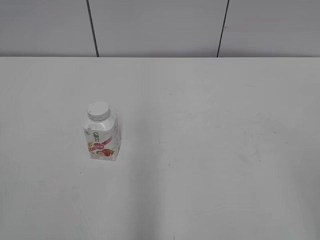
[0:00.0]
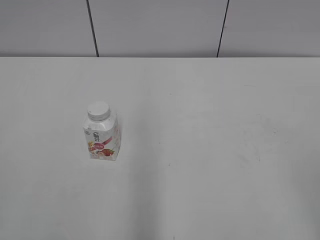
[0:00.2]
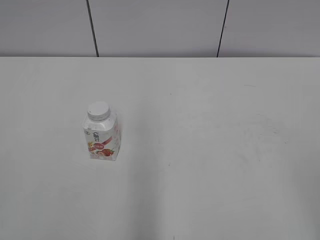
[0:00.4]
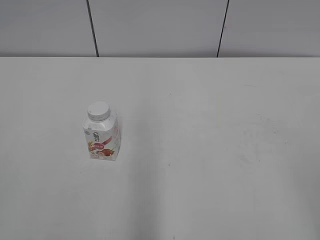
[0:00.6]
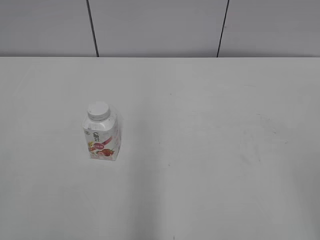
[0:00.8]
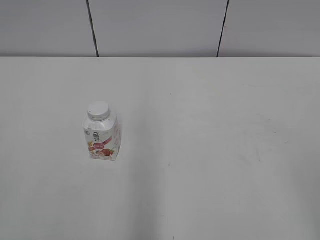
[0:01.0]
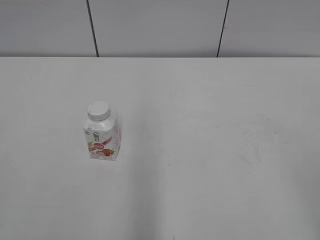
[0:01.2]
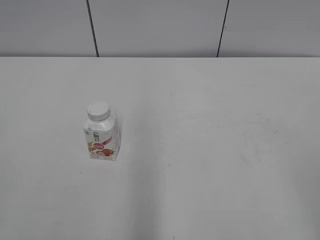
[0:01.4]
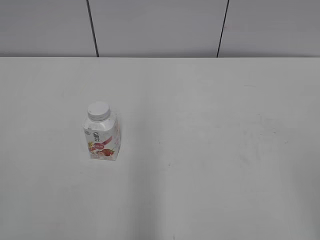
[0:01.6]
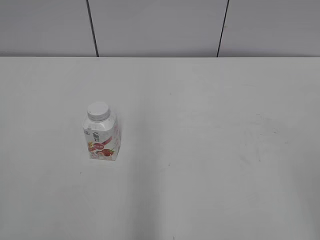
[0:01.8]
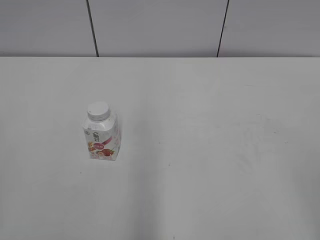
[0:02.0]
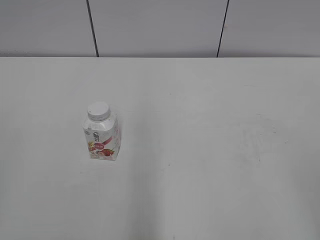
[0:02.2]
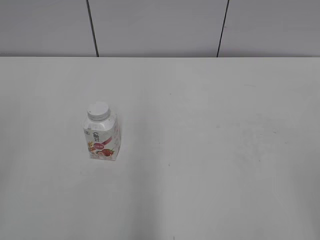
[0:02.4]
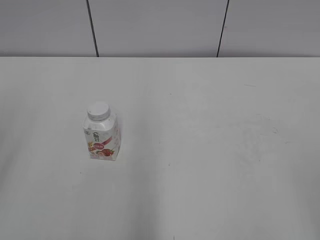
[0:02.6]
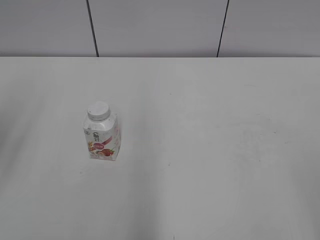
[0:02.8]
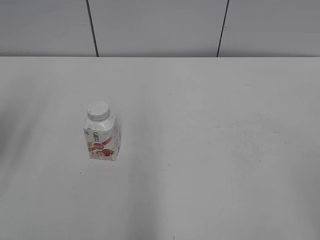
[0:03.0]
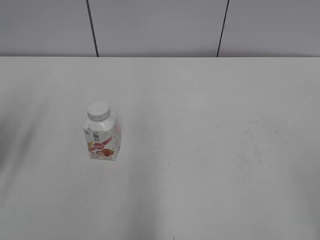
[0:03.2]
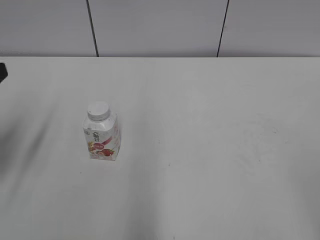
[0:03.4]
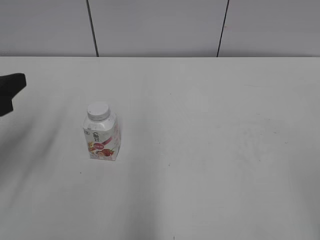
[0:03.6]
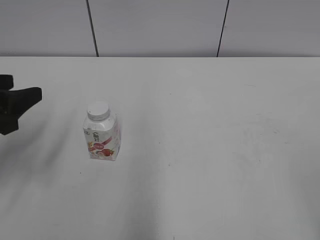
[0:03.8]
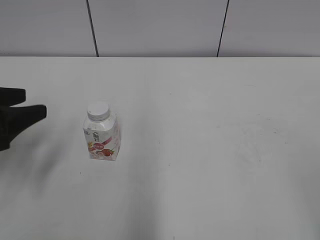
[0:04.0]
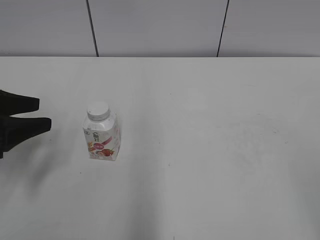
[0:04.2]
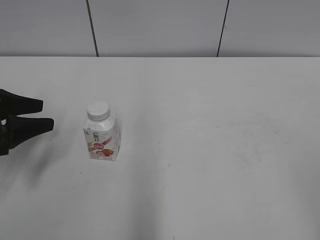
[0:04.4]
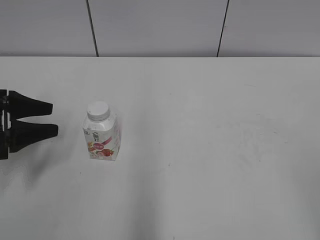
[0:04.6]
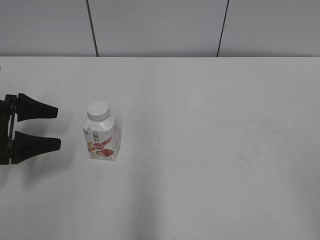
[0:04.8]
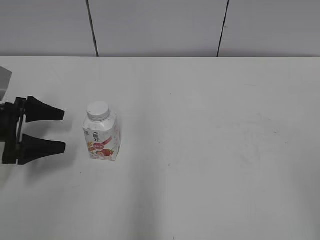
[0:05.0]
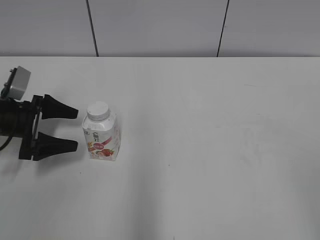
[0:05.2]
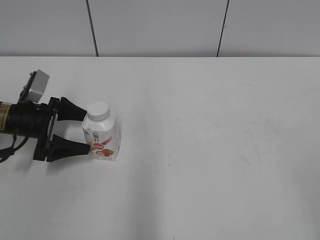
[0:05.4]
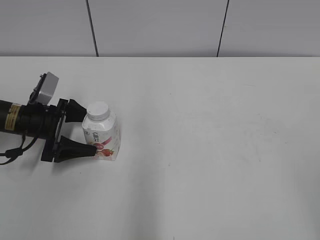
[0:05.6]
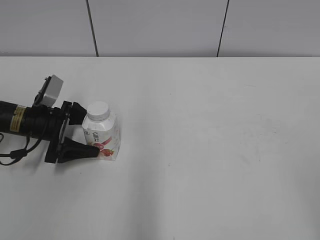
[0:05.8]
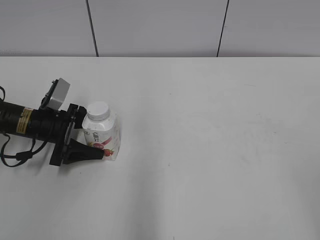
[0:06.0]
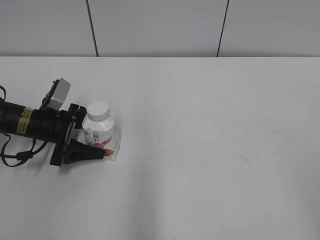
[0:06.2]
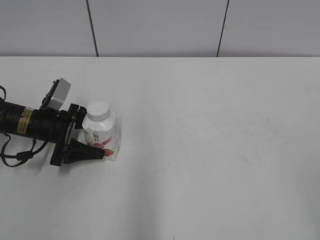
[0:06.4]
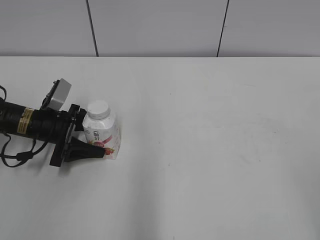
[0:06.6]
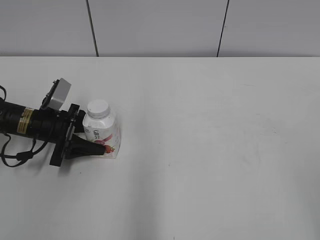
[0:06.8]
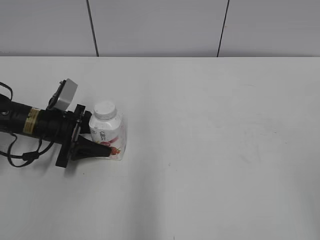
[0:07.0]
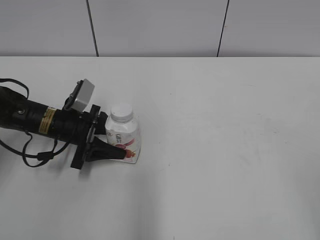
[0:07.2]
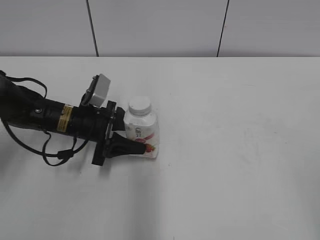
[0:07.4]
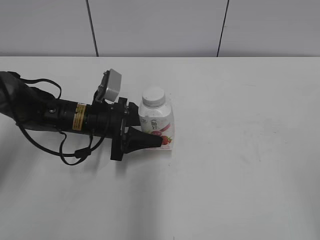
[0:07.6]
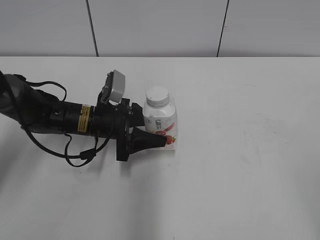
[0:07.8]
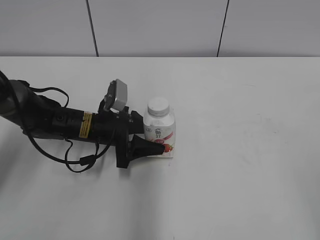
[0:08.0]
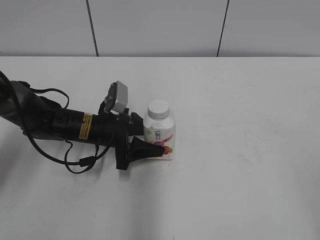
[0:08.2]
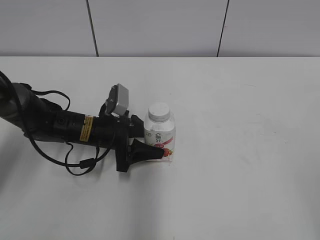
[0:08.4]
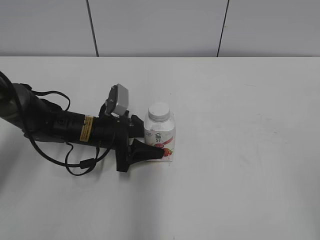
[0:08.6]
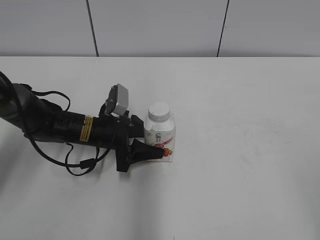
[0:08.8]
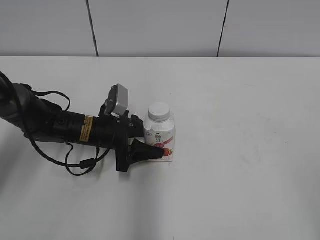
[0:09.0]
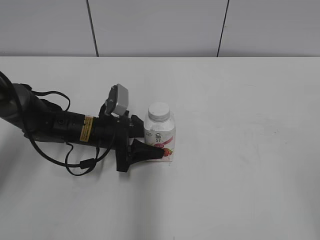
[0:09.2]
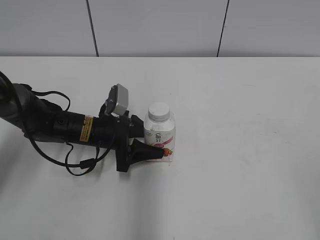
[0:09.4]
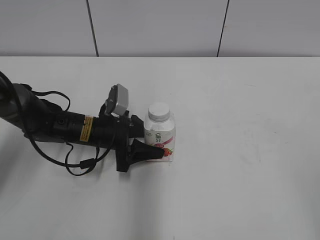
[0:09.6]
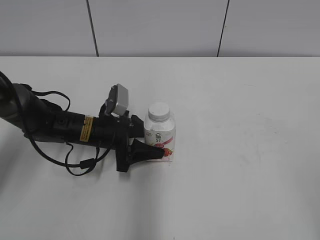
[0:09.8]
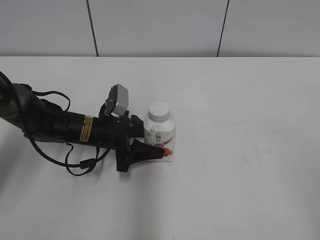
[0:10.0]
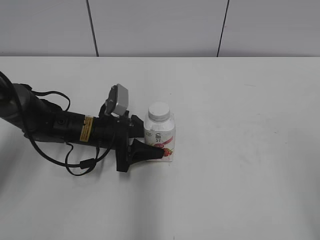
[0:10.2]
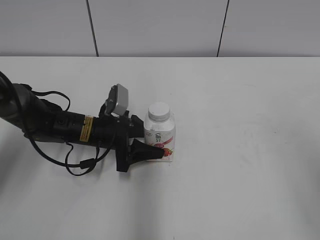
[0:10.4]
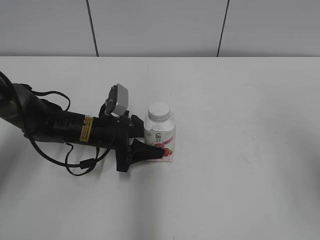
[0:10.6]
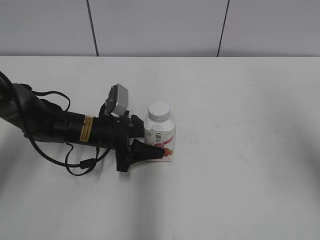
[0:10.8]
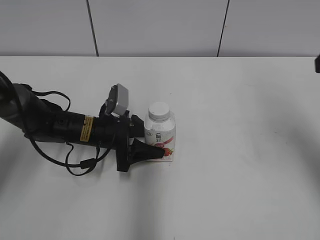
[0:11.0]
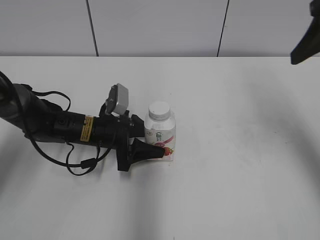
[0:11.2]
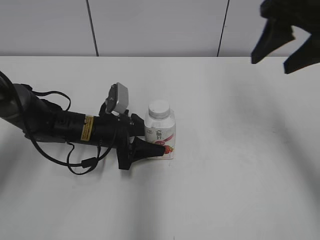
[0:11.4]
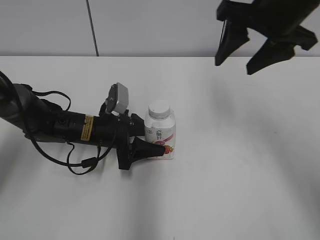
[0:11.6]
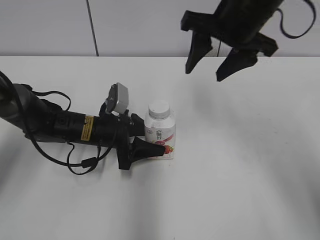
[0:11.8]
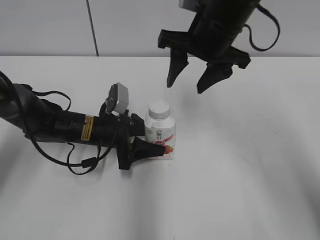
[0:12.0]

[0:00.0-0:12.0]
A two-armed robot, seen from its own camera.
Step, 0:00.0 to 0:06.6: Grab the Yili Changqing with the left hand.
Step, 0:06.8 to 0:09.8: Move the Yili Changqing from left to right.
0:01.6 to 0:03.0: The left gripper travels forward by some 20 cm.
0:03.0 to 0:04.4: The left gripper moves downward and forward, about 15 cm.
0:04.4 to 0:06.0: The left gripper moves downward, forward and to the right, some 15 cm, and opens up.
0:06.0 to 0:07.6: The left gripper heads to the right, covering some 10 cm, and closes.
0:07.6 to 0:09.0: The grippers make only small movements.
0:10.4 to 0:12.0: The right gripper goes approximately 35 cm forward and to the left, and closes its fingers.

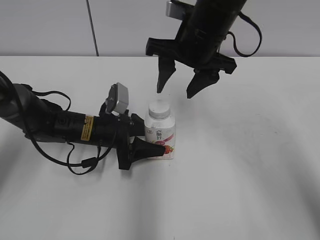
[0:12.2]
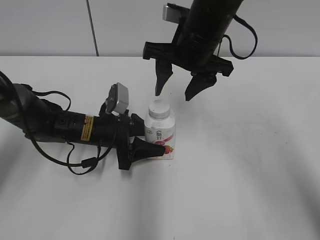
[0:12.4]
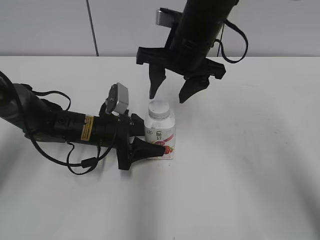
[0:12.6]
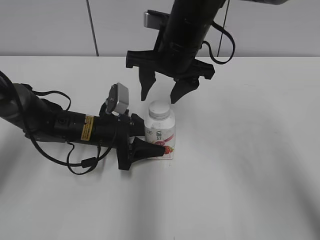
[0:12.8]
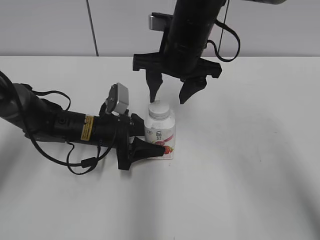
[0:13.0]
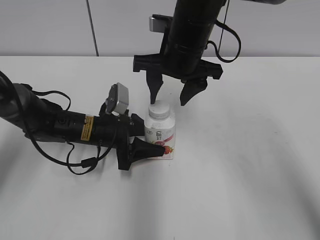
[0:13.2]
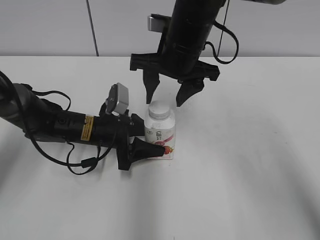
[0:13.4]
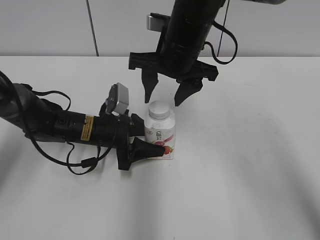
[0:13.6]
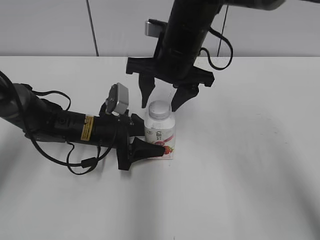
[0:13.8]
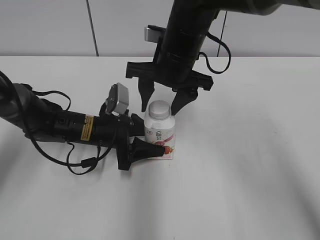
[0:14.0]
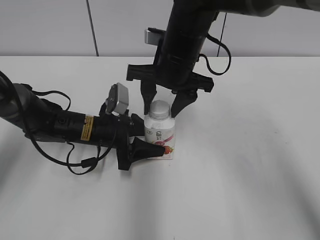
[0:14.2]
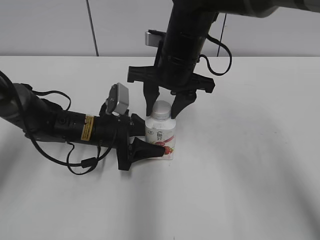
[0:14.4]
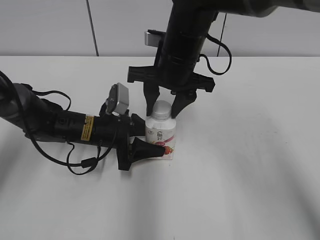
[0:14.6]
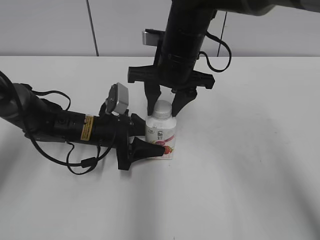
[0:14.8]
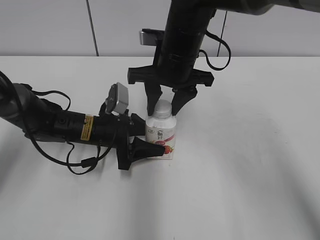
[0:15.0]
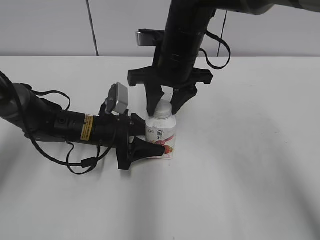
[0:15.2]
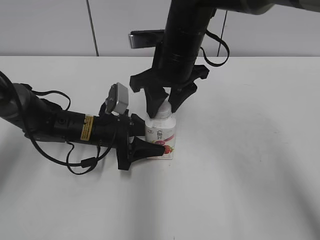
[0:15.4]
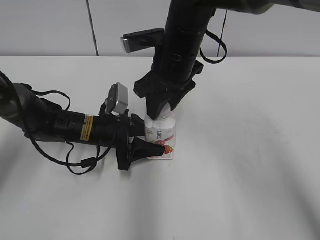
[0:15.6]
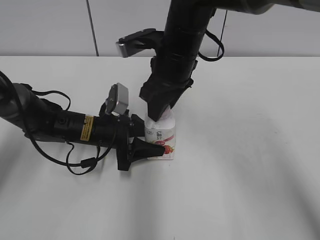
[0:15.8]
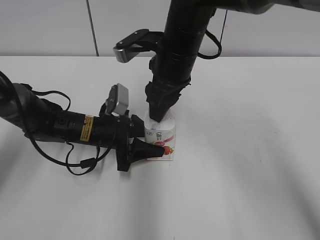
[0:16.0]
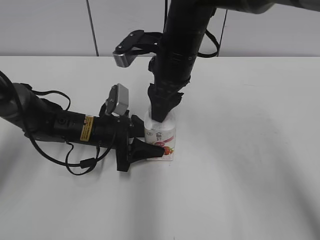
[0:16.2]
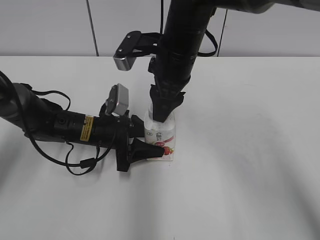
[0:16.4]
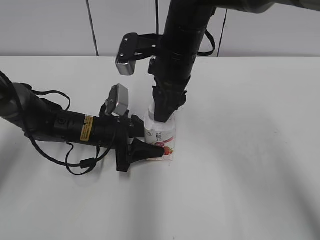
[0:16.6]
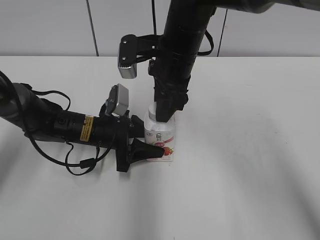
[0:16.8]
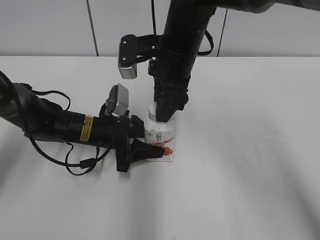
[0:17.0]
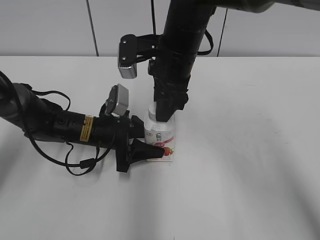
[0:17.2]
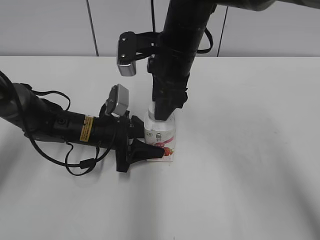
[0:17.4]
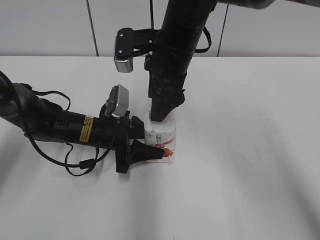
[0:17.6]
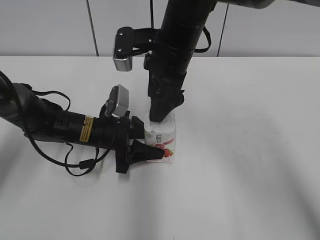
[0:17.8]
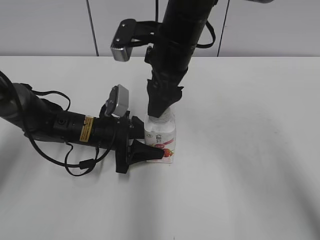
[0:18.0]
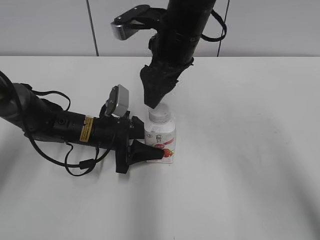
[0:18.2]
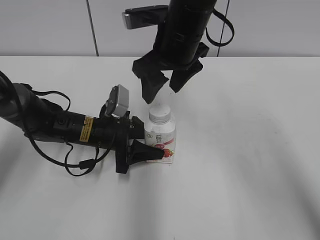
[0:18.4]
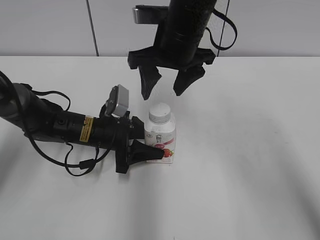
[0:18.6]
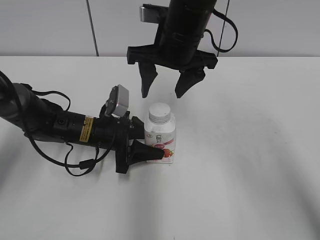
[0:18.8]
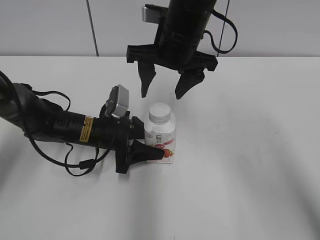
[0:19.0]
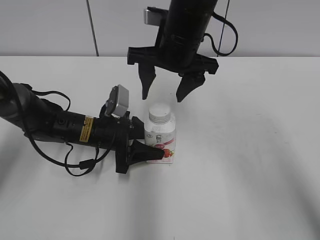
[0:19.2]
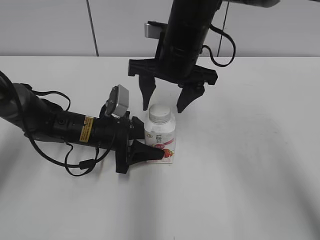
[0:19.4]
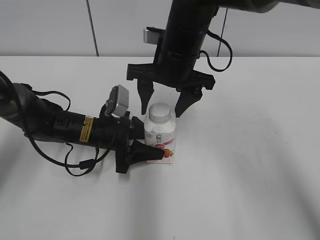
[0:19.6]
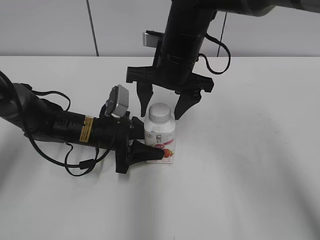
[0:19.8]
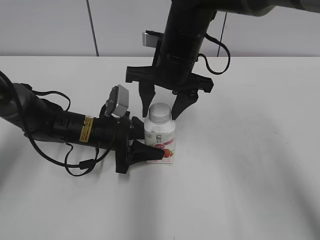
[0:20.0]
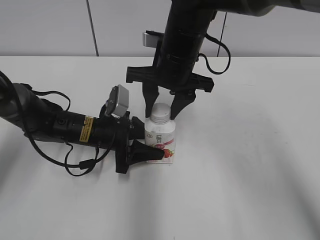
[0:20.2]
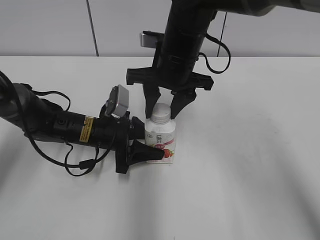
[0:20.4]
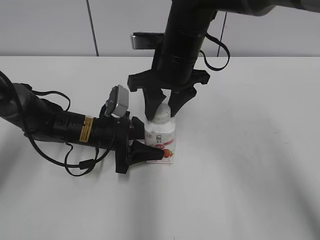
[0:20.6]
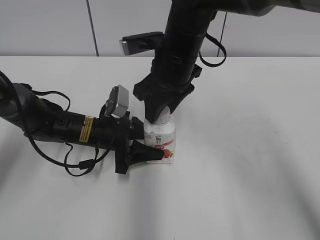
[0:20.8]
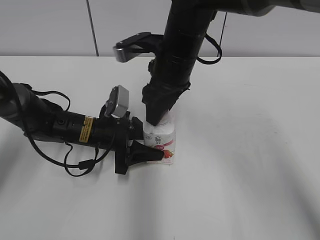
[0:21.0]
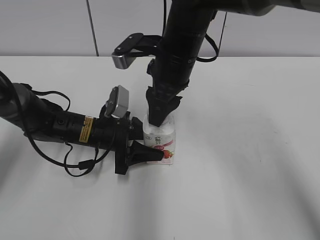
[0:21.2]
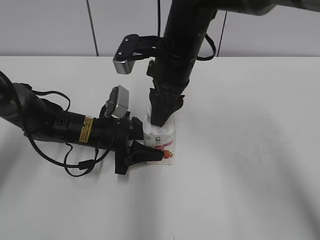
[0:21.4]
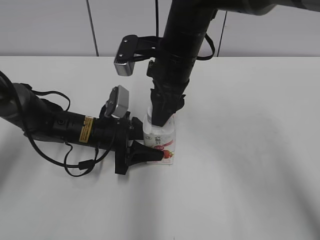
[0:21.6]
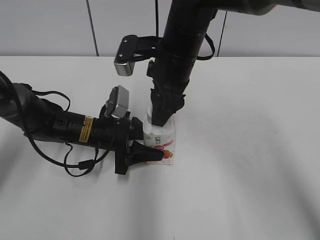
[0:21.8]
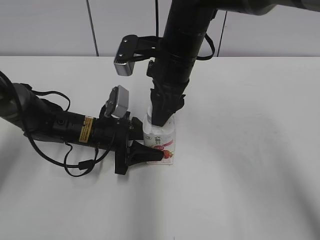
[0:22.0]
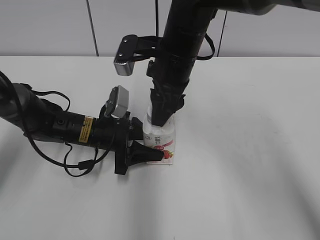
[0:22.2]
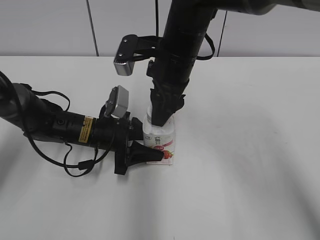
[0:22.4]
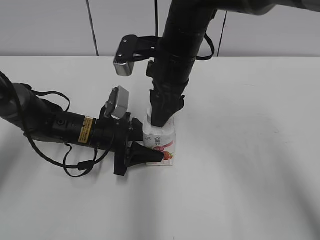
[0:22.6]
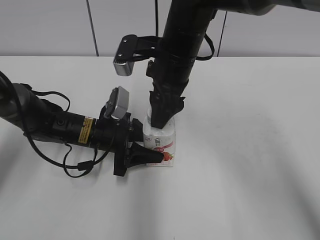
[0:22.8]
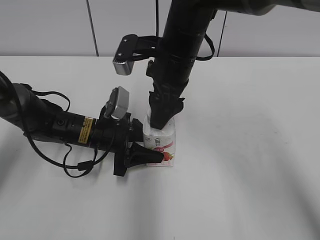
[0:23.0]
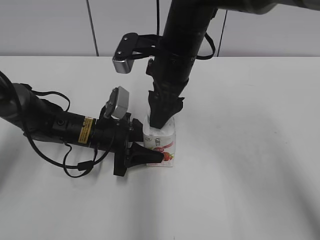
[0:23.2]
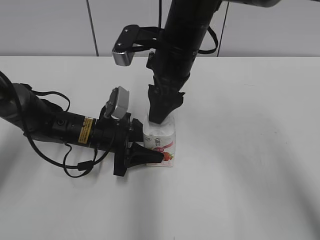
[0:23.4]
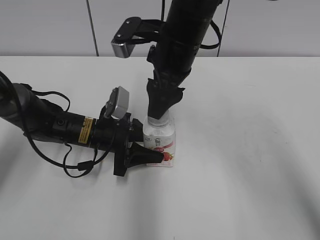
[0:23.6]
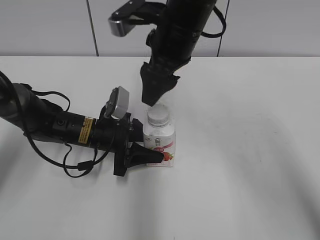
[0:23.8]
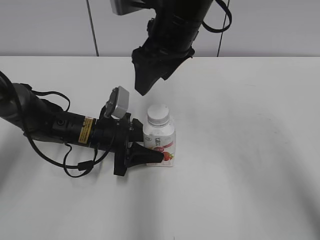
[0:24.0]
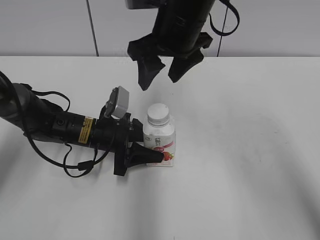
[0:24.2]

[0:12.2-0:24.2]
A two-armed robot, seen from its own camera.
0:12.2 to 0:13.8: There are only small adjustments of the grippers.
0:13.8 to 0:15.2: The right gripper closes.
0:16.6 to 0:18.2: The right gripper opens.
0:19.8 to 0:21.2: The right gripper closes up.
0:21.2 to 0:22.6: There are only small adjustments of the grippers.
0:22.6 to 0:24.2: The right gripper travels upward by about 5 cm, and opens up.
